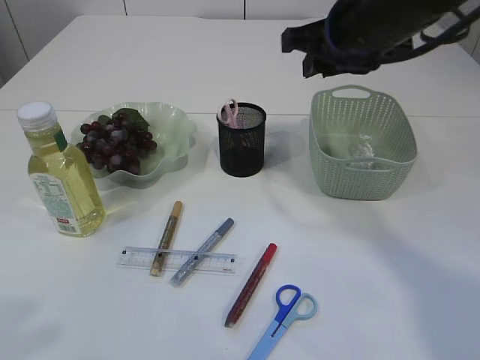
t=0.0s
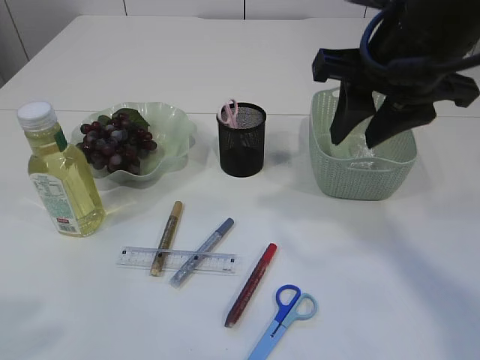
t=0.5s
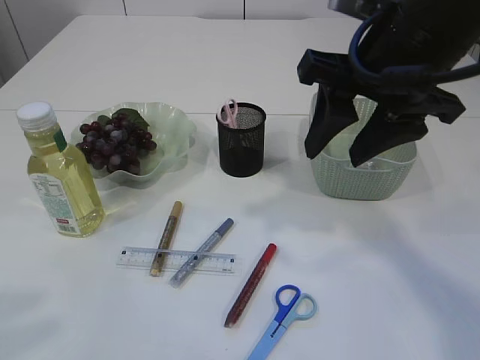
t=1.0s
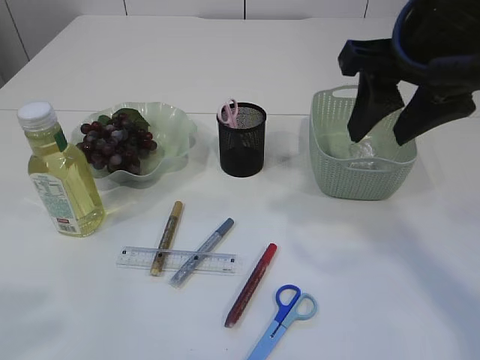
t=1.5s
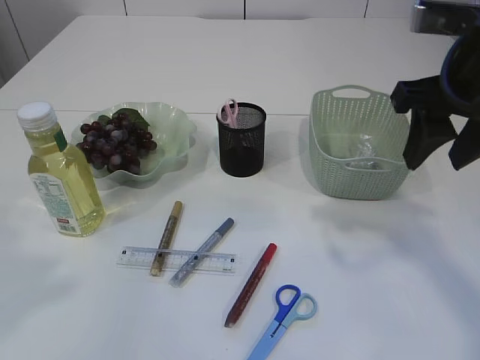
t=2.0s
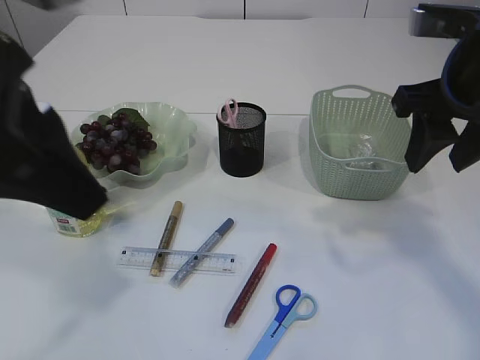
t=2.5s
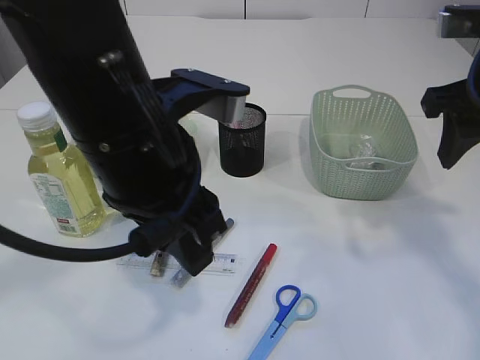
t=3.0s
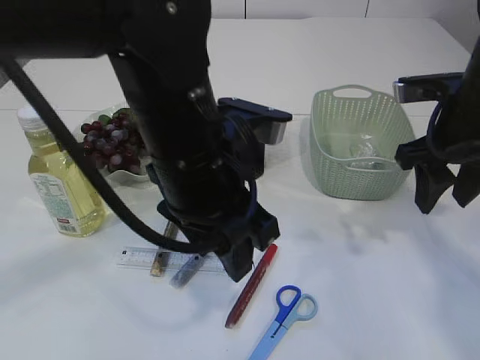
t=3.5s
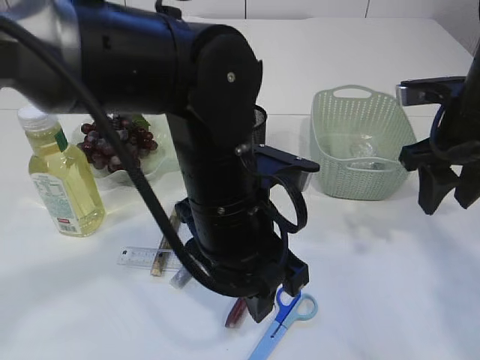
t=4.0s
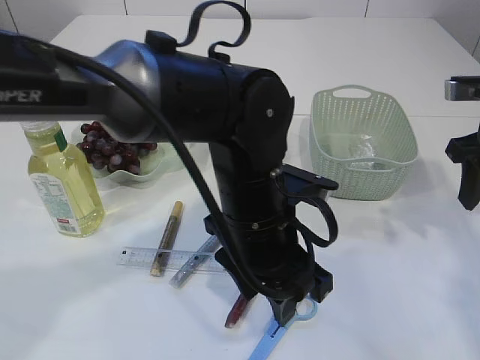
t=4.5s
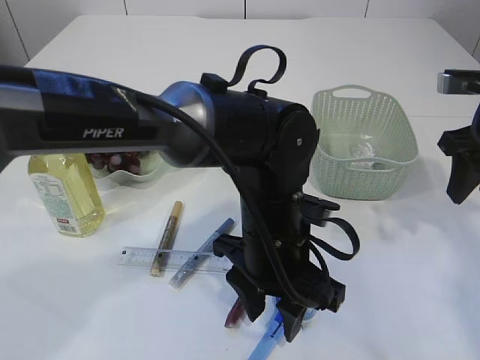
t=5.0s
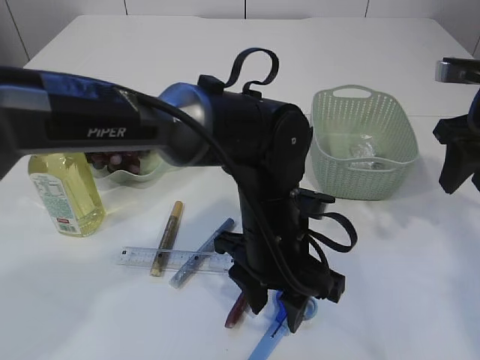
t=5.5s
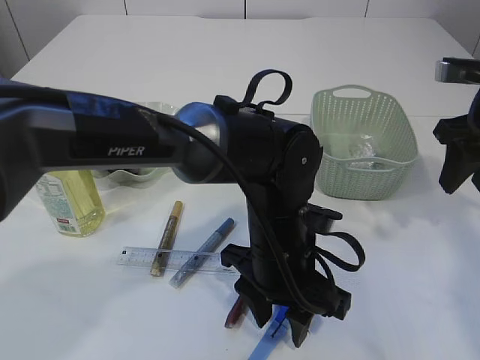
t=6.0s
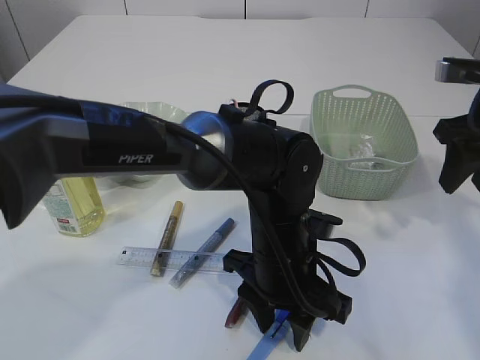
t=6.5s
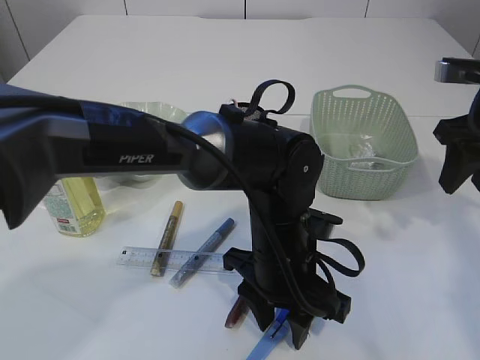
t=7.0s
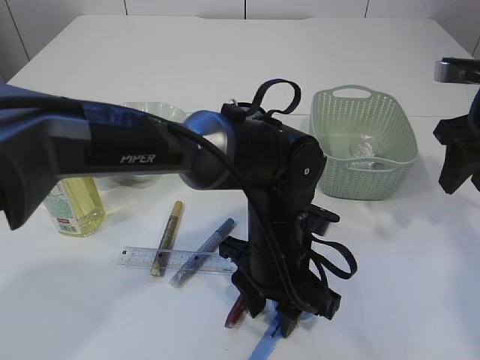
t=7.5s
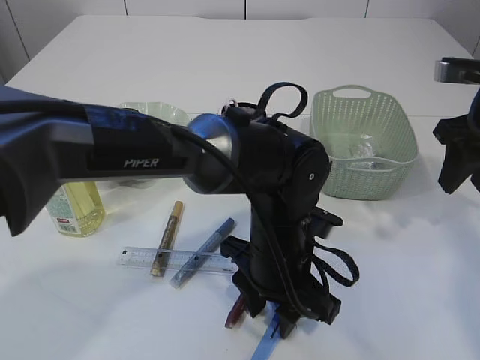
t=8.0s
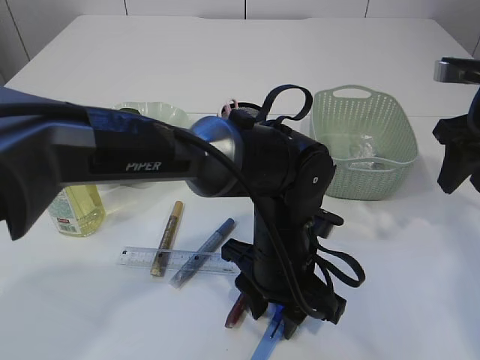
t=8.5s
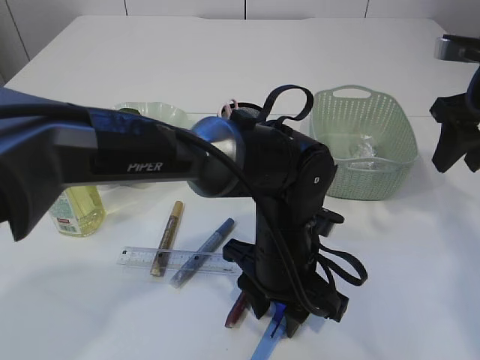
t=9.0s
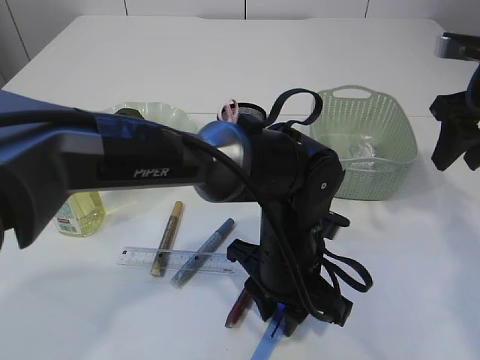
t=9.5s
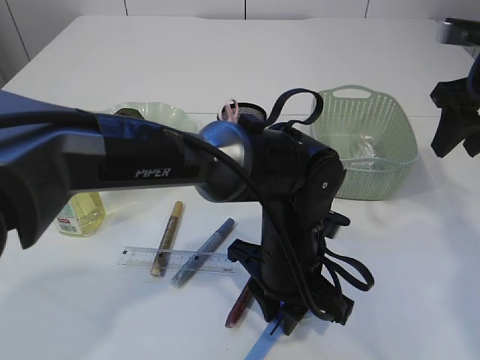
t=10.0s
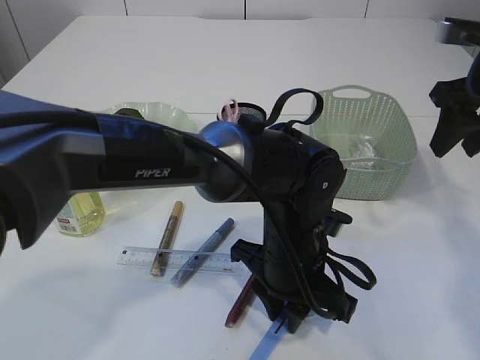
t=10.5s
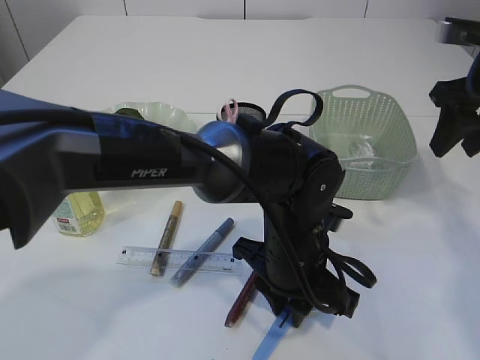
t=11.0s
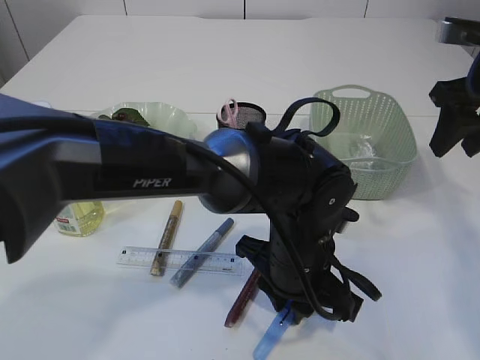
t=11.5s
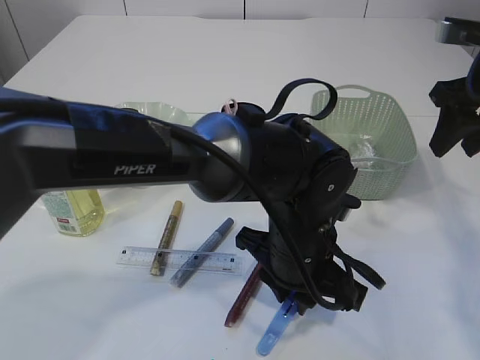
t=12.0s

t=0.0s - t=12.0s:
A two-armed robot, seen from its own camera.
t=0.0s - t=2.0s: The left gripper shifts by approximately 5 cm, while the right gripper shifts some 10 cm backward and to the right, and opens up.
t=2.0s - t=4.0s: The left gripper is displaced to the right, downward and forward by some 30 cm, while the right gripper goes approximately 10 cm downward.
t=4.0s - t=6.0s: The left gripper travels downward and to the right by some 10 cm.
t=6.0s - t=12.0s: The grippers move only a little.

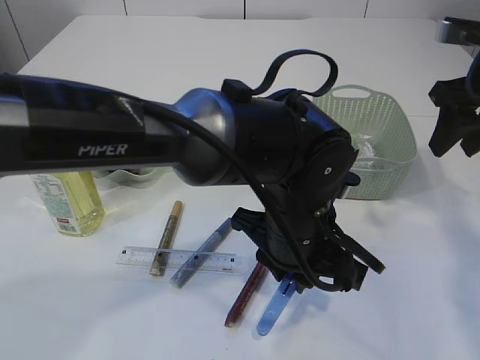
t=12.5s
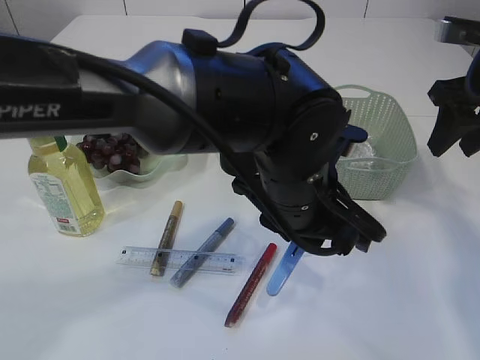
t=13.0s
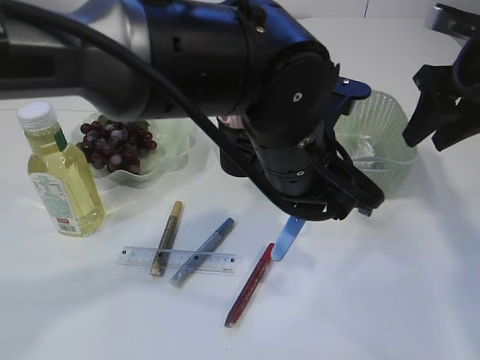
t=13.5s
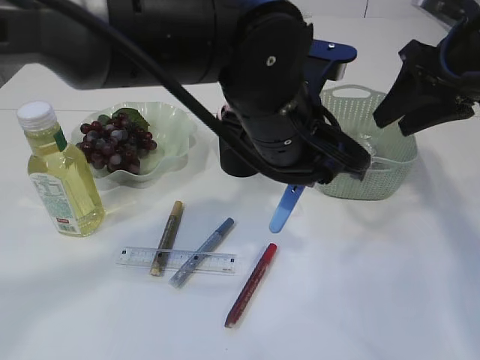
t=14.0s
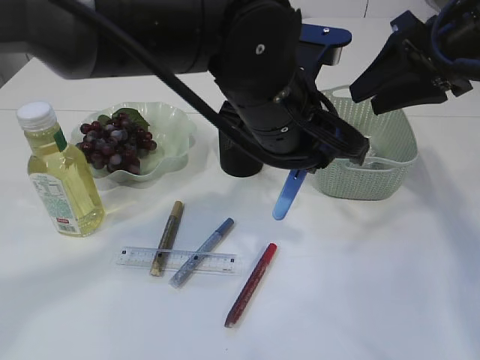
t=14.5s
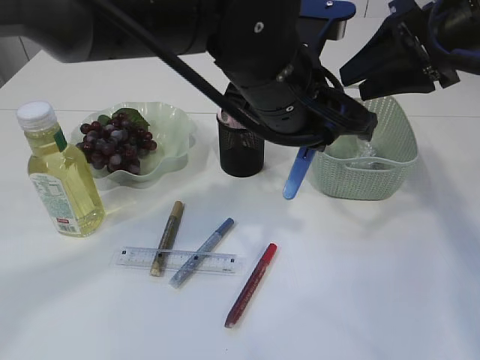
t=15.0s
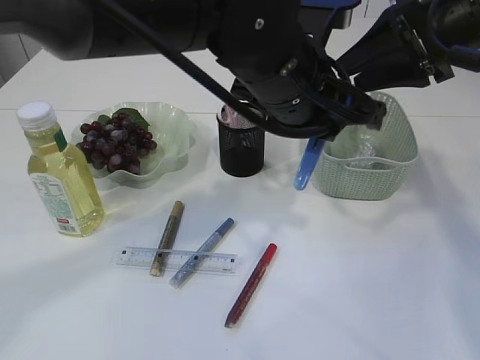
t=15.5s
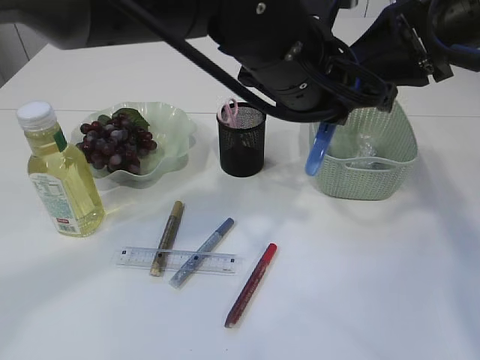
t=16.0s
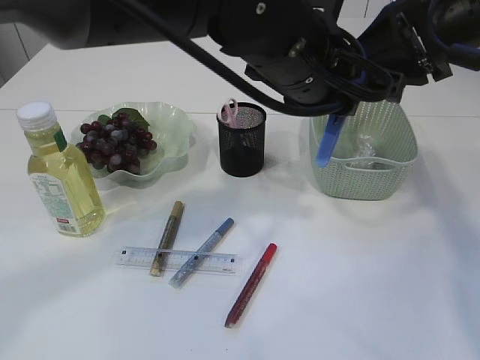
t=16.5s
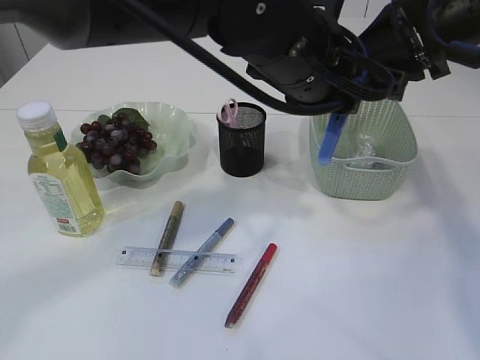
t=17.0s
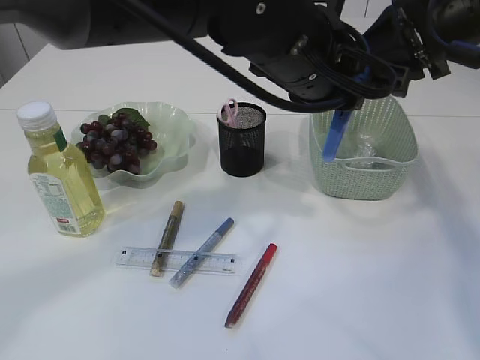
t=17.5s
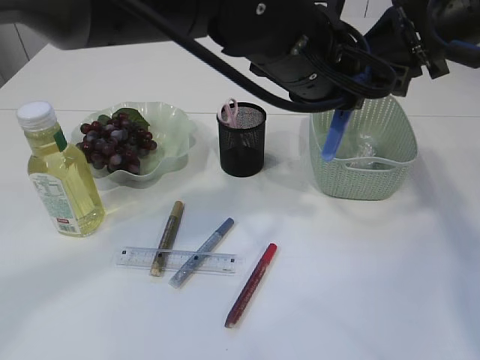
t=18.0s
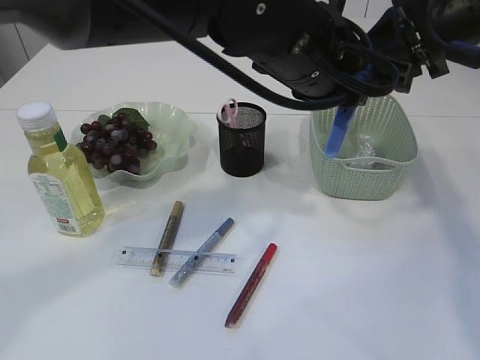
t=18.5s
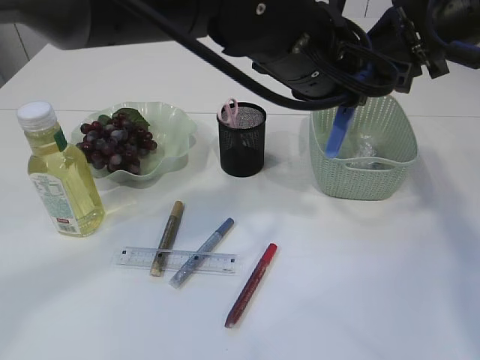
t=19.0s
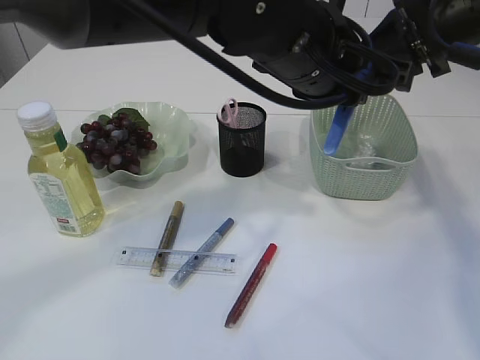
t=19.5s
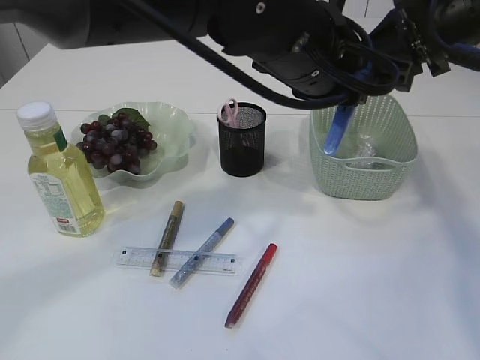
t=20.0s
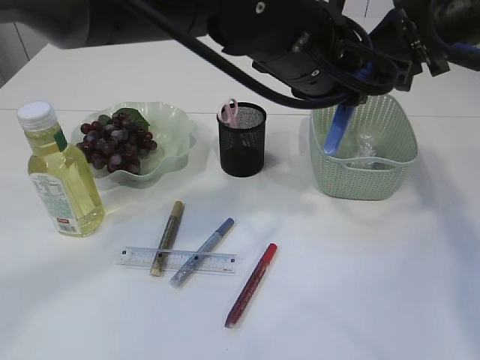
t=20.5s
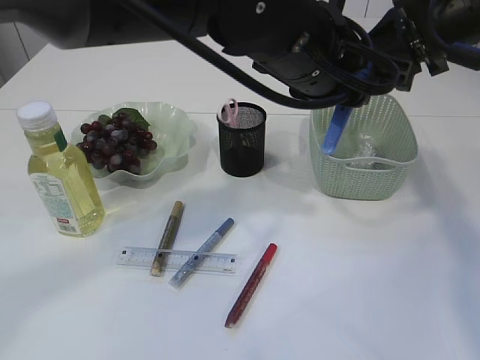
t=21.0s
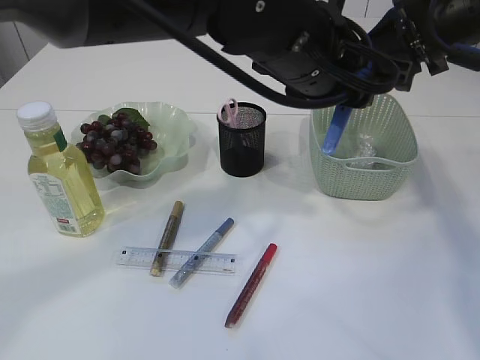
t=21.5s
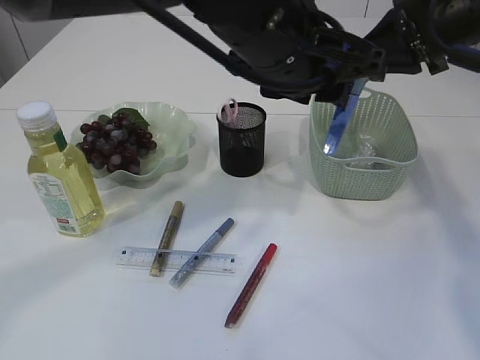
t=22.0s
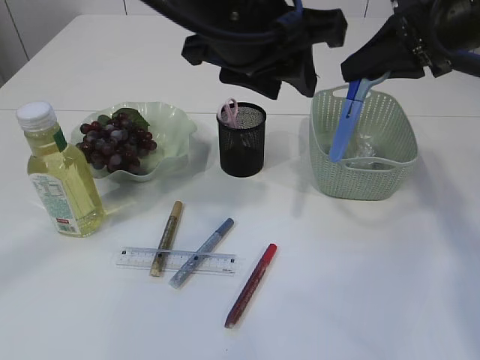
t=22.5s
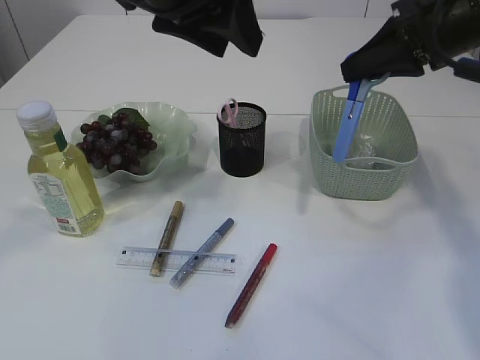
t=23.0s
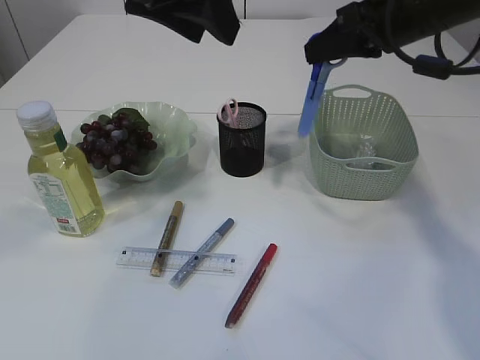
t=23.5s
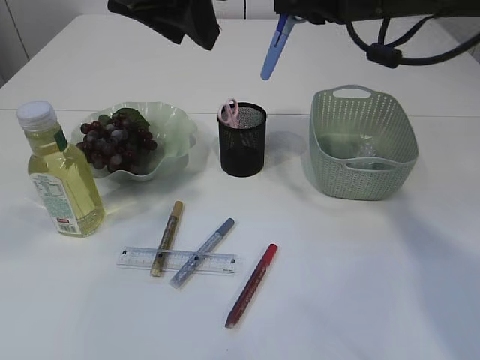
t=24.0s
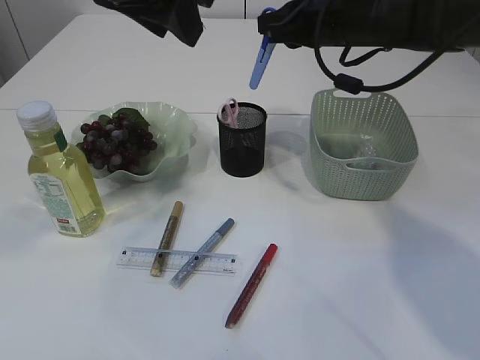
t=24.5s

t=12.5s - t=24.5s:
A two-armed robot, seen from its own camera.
Step, t=13.0s - t=22.5s: Hand over the blue scissors.
t=12.5s - t=14.5s: The right gripper shifts by approximately 5 cm. Meanwhile the left gripper goes about 10 cm upward.
t=14.5s - t=16.5s: The grippers stay close to where they were, moving slightly.
t=16.5s - t=18.5s: The right gripper closes.
t=18.5s - t=20.5s: The two grippers keep their place.
t=20.5s - t=22.5s: The left gripper heads to the left, covering roughly 5 cm.
t=22.5s - t=24.5s: The right gripper moves to the left and forward, about 10 cm; the left gripper moves to the left and upward, some 10 cm.

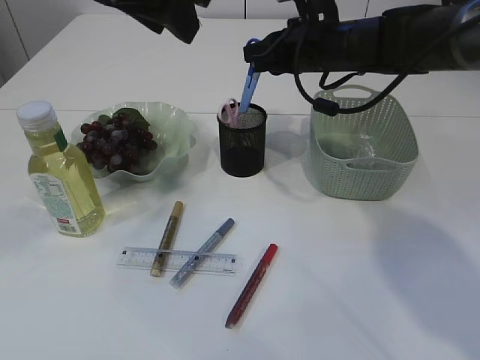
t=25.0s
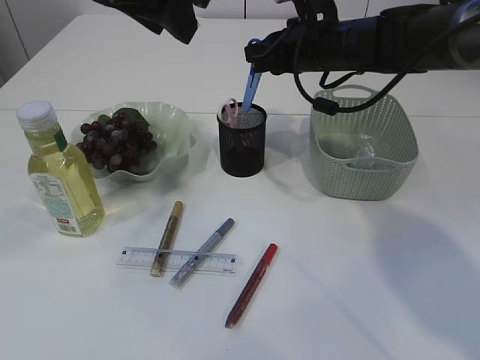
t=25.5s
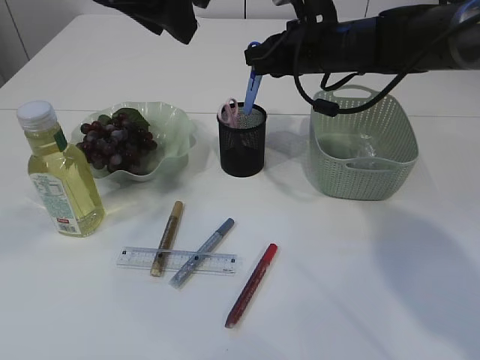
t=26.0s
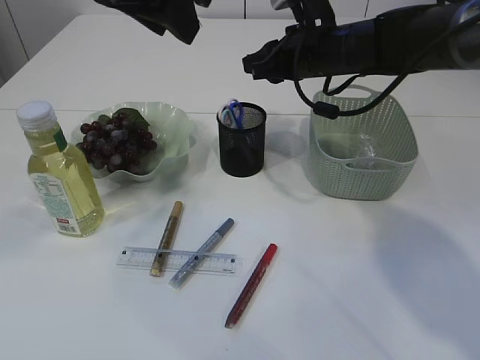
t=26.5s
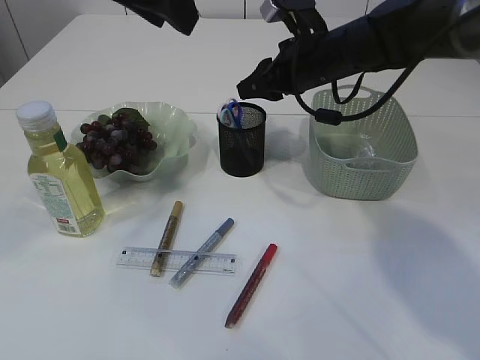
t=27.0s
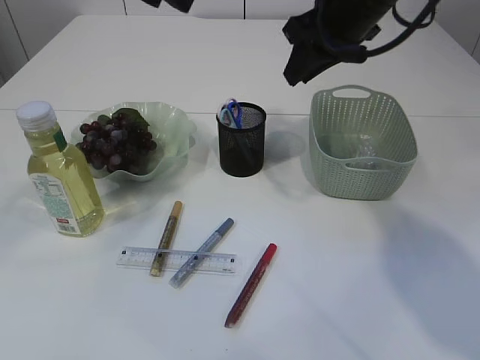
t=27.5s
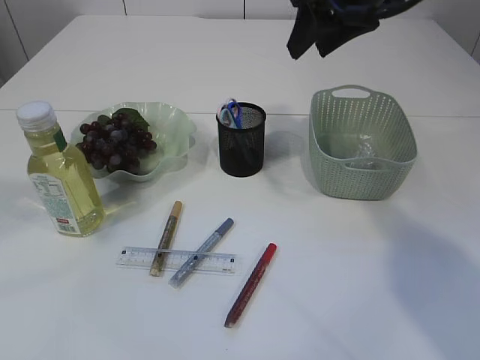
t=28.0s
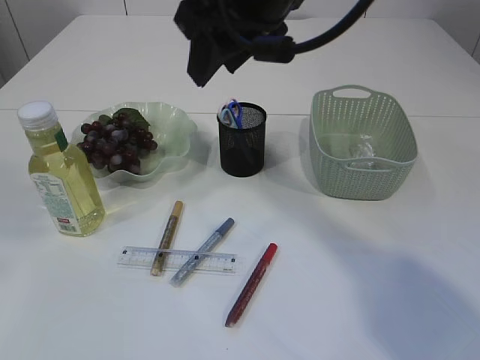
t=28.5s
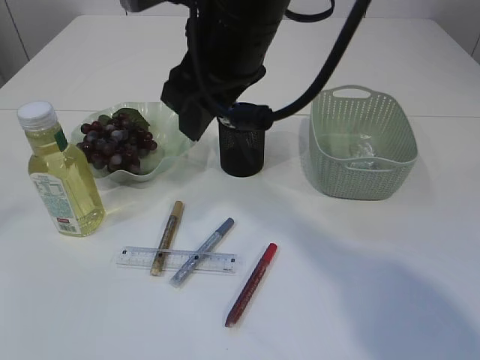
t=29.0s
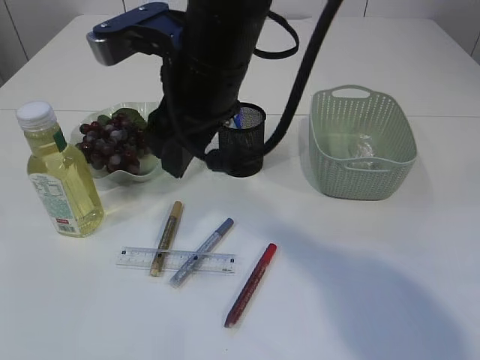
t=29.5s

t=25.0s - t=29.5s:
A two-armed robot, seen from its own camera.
Step, t=25.0s - t=27.0s: Place the blue scissors into the pen holder.
t=25.0s - t=27.0s: The grippers move only a little.
t=27.0s - t=29.5s: The left gripper goes roughly 25 cm to the left, backward and upward, while the right gripper shifts roughly 20 cm backward, to the left and upward, and opens its fingers.
